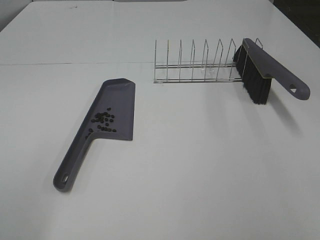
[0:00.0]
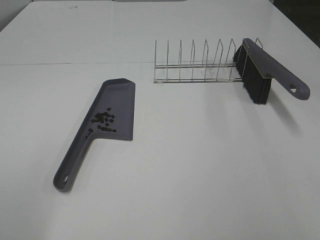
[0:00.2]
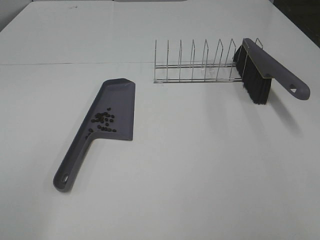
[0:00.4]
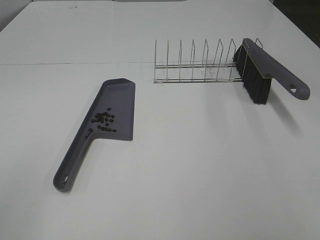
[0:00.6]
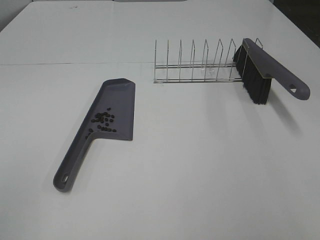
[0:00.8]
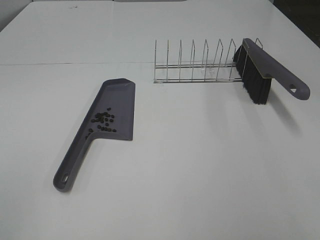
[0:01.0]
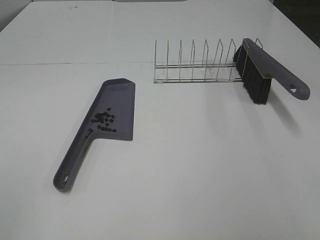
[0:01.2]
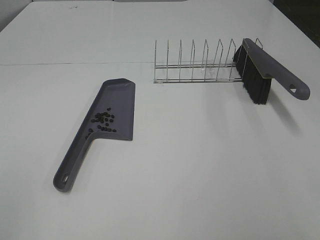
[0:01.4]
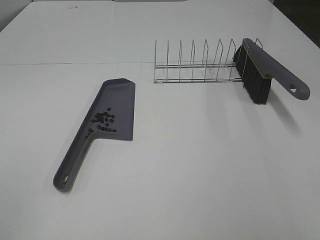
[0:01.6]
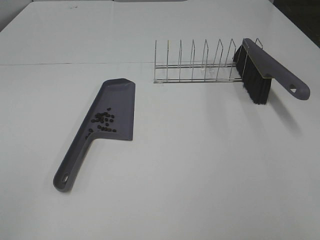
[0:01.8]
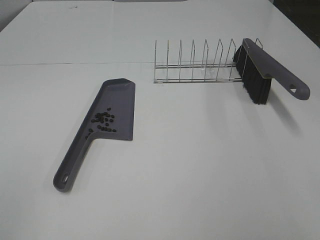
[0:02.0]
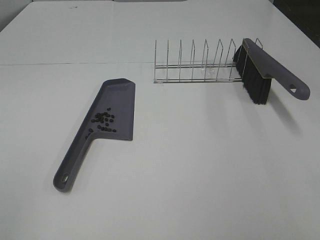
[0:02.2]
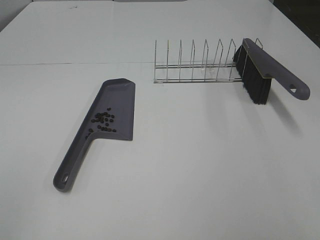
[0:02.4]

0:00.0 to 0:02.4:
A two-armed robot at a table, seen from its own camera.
Task of the whole recording: Sweep Coffee Bean.
0:01.2 to 0:02.4: The two grippers keep their place.

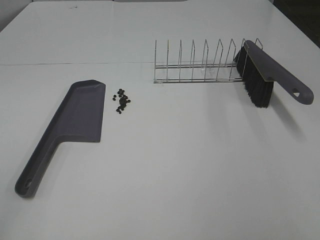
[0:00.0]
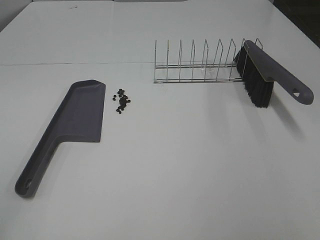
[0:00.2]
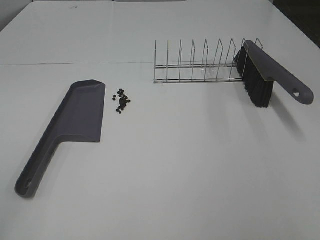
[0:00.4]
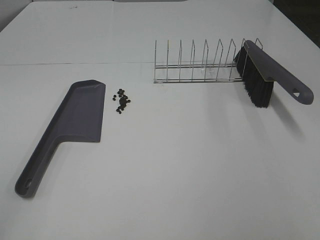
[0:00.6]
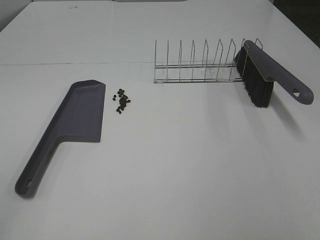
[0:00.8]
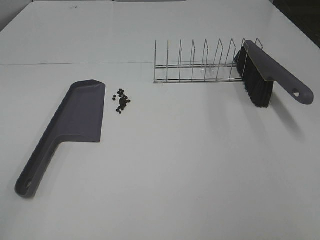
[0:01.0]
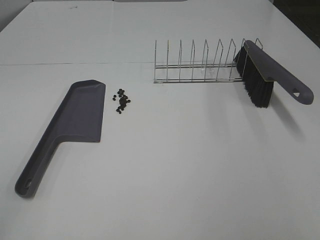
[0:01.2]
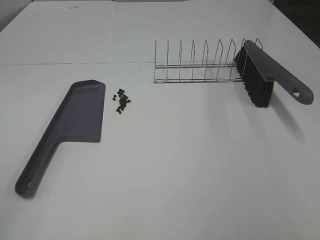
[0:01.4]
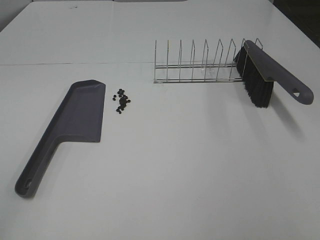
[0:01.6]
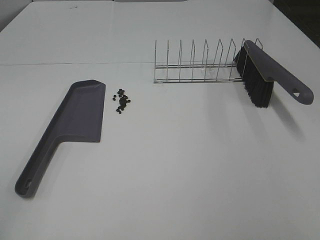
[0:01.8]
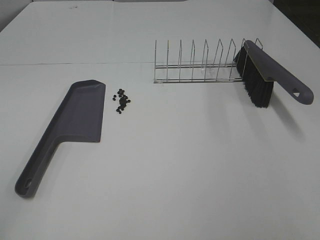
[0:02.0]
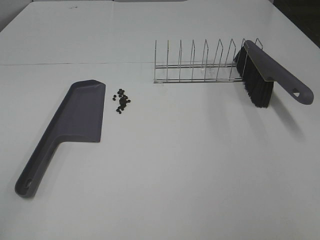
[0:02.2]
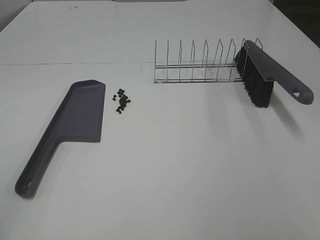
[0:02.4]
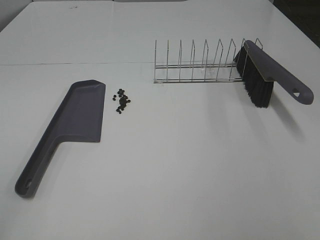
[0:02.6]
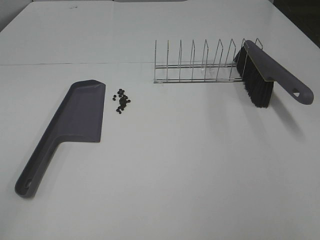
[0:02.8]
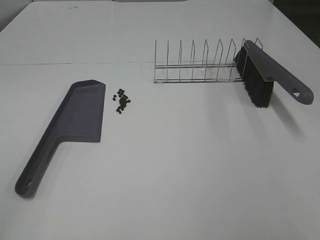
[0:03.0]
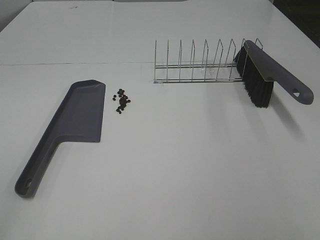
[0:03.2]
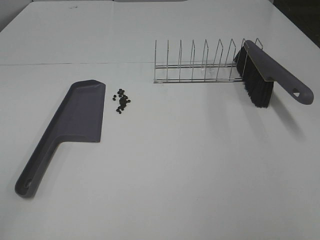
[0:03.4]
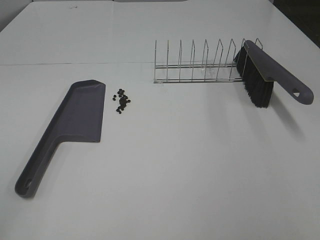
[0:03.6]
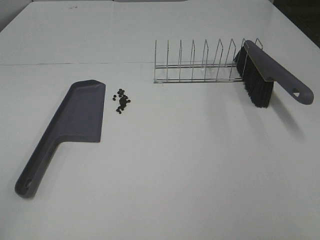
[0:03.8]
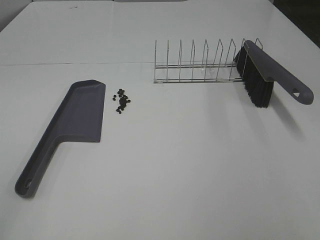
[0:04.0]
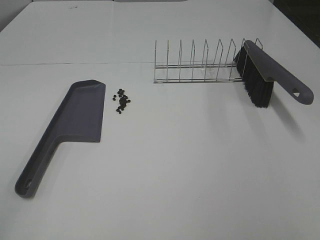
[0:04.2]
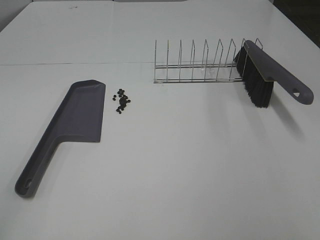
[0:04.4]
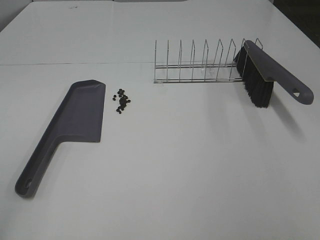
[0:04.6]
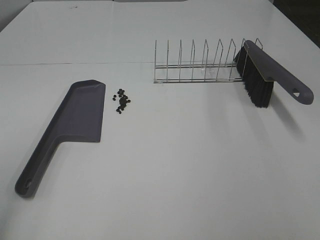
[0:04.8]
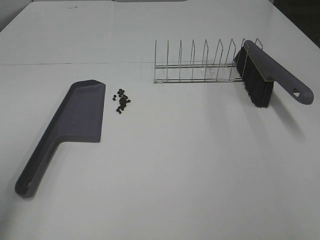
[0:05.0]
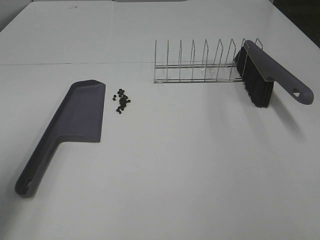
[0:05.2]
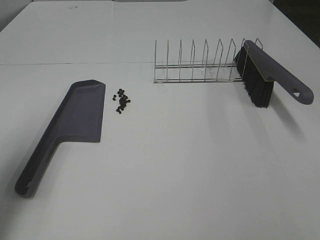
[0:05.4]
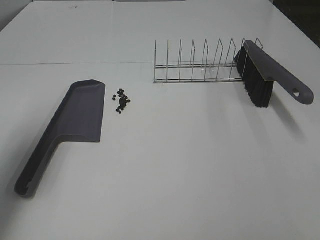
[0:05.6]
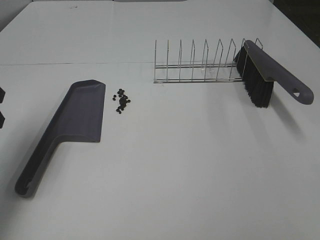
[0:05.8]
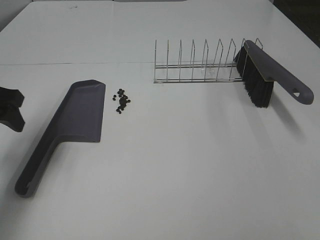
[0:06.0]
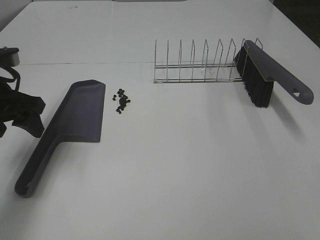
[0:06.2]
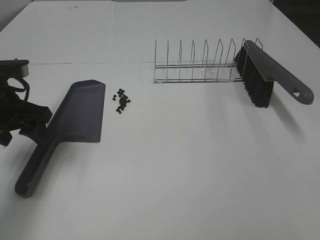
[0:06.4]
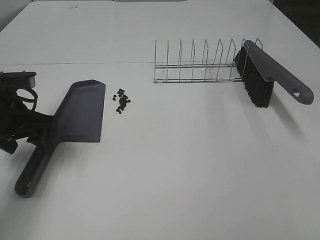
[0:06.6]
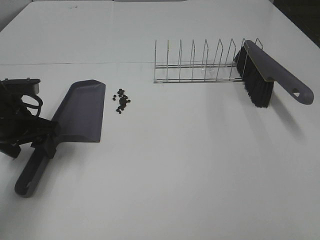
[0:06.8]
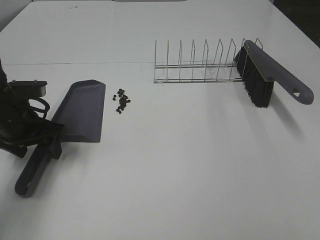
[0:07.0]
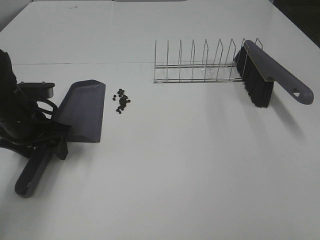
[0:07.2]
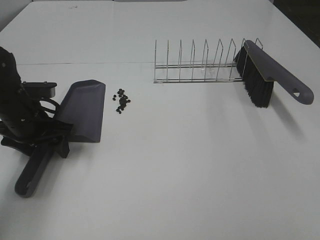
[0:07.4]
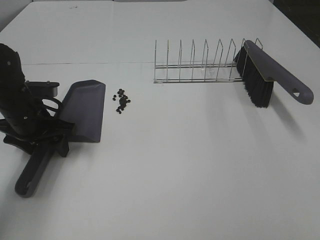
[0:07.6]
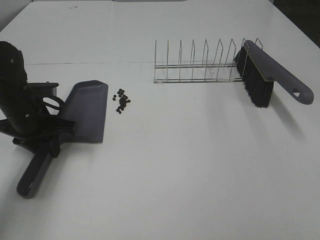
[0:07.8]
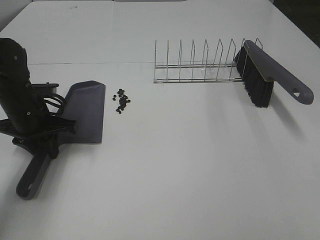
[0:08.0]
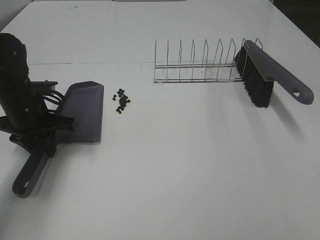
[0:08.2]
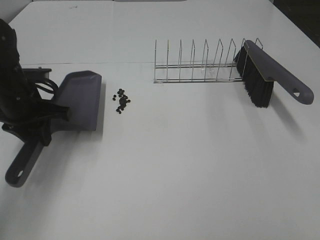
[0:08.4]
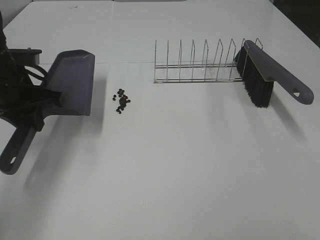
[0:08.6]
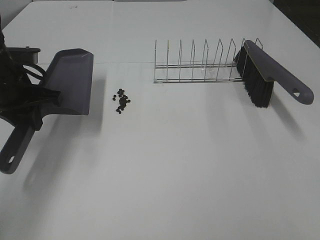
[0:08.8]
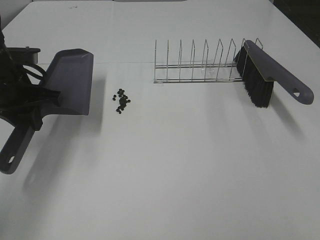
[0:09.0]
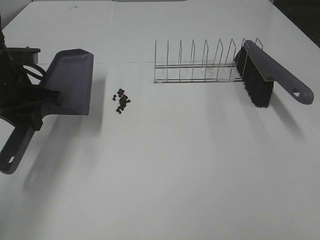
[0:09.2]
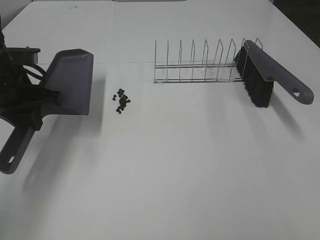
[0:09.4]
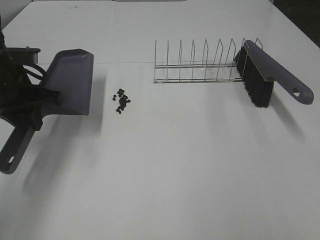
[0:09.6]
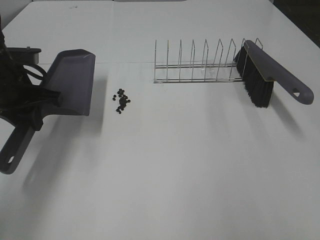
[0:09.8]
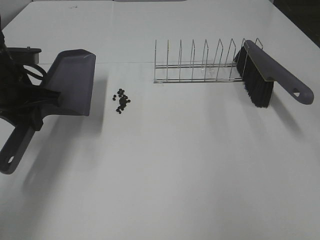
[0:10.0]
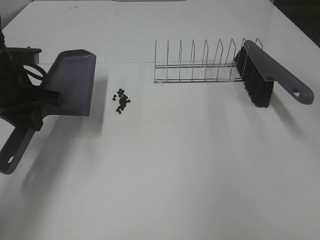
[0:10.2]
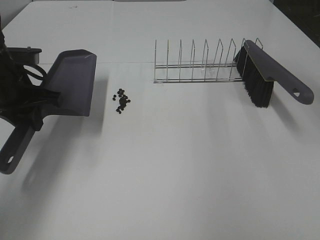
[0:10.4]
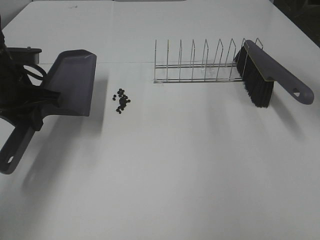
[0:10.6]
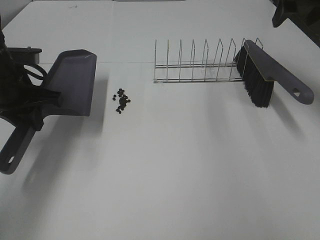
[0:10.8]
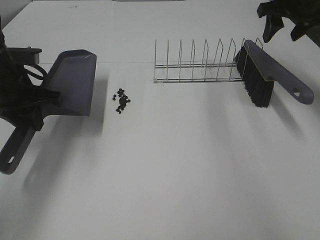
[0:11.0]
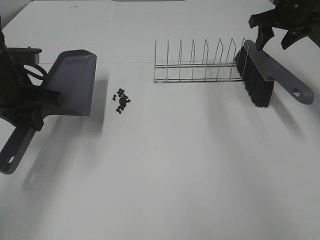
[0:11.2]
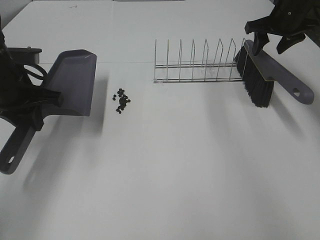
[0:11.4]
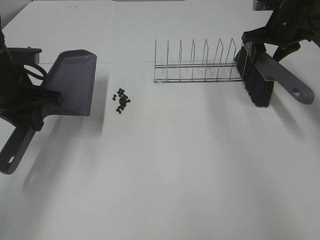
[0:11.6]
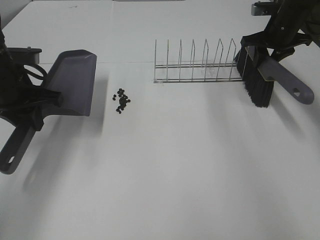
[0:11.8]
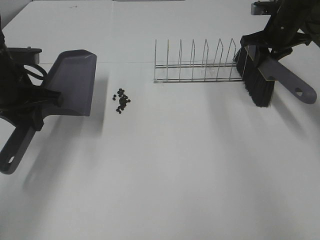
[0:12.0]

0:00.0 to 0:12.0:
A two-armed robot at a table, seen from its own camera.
Task of the whole recording: Sweep Coffee Bean.
Step, 0:00.0 to 0:08.0: Left hand: grab the dustpan.
0:00.0 to 0:04.4: Both grippers stay about where they are.
0:04.4 to 0:06.0: The left gripper travels forward by roughly 30 cm.
0:06.0 to 0:07.6: The left gripper shifts some 10 cm downward.
0:07.6 to 0:09.0: The left gripper travels upward by some 10 cm, and closes.
0:10.4 to 0:12.0: The right gripper moves forward and downward, some 25 cm, and closes.

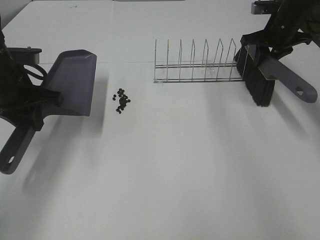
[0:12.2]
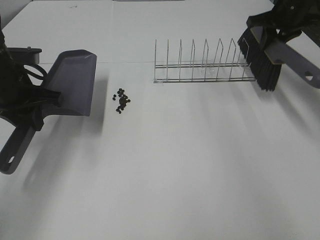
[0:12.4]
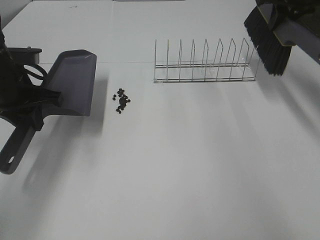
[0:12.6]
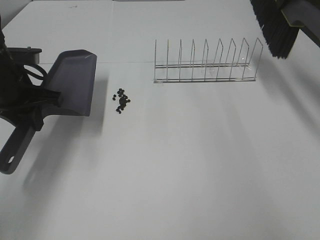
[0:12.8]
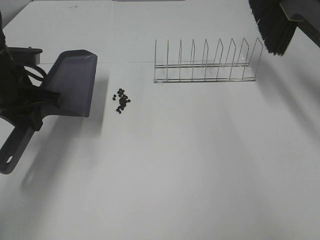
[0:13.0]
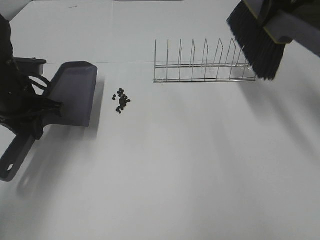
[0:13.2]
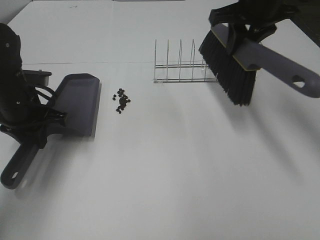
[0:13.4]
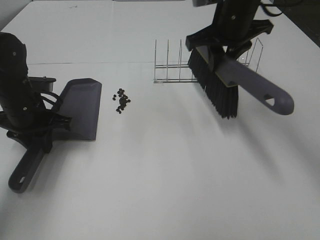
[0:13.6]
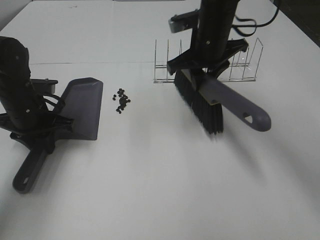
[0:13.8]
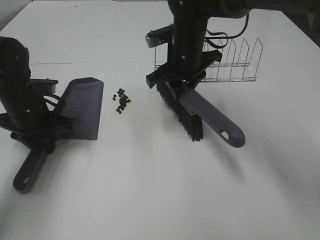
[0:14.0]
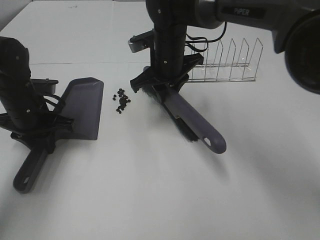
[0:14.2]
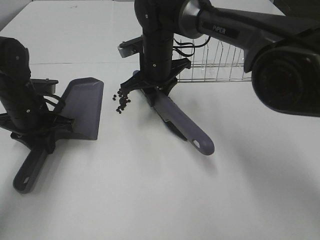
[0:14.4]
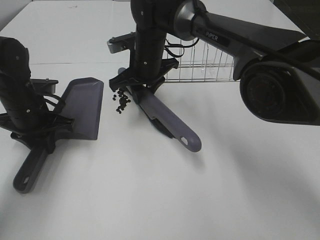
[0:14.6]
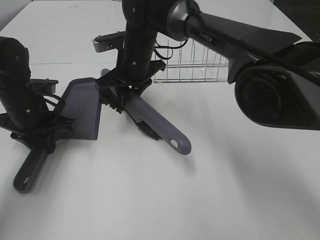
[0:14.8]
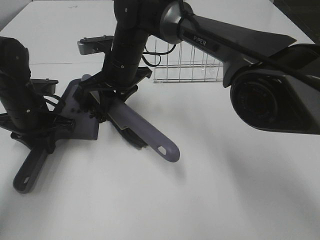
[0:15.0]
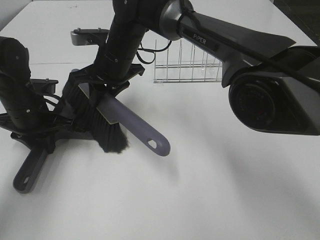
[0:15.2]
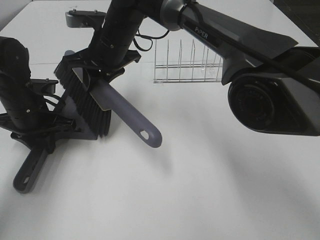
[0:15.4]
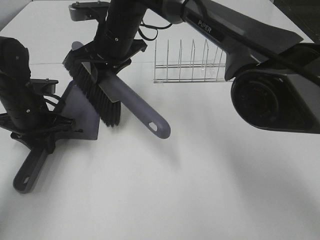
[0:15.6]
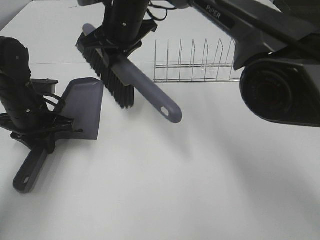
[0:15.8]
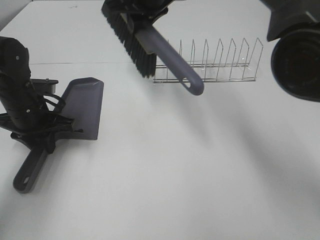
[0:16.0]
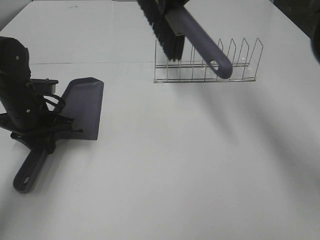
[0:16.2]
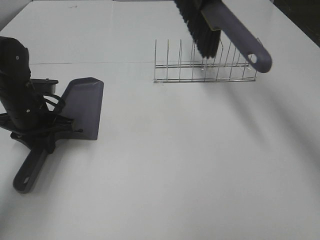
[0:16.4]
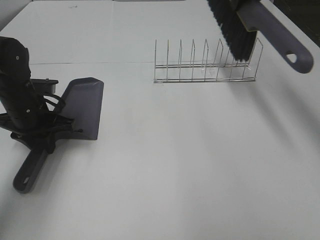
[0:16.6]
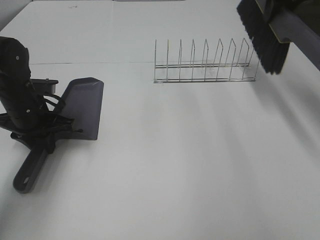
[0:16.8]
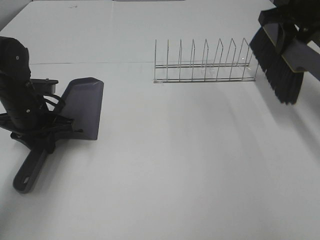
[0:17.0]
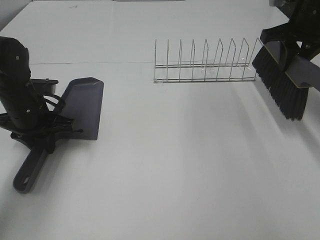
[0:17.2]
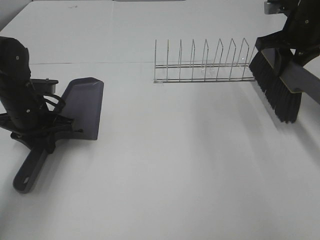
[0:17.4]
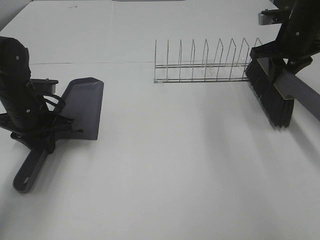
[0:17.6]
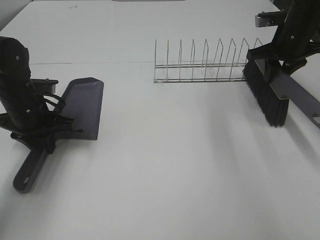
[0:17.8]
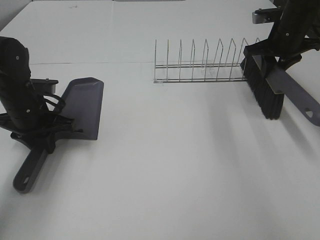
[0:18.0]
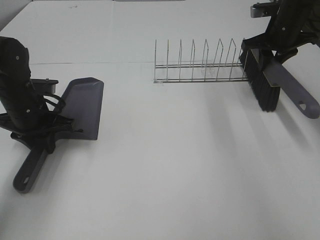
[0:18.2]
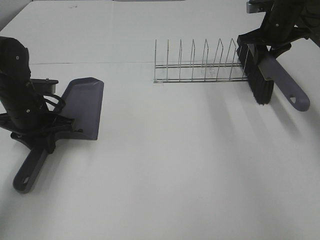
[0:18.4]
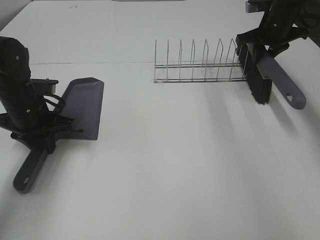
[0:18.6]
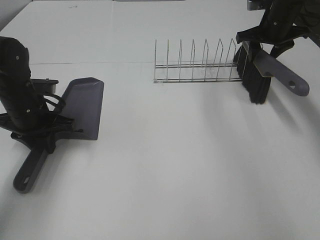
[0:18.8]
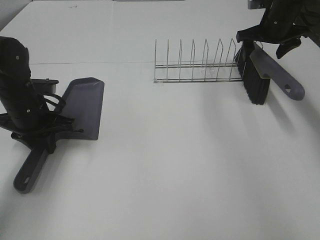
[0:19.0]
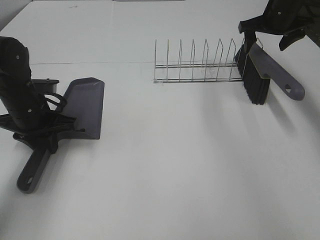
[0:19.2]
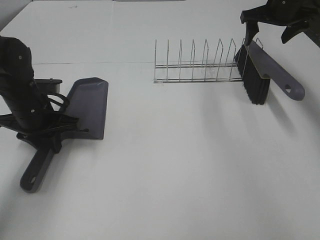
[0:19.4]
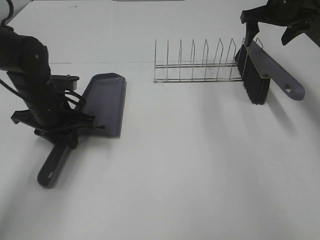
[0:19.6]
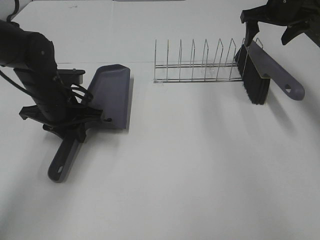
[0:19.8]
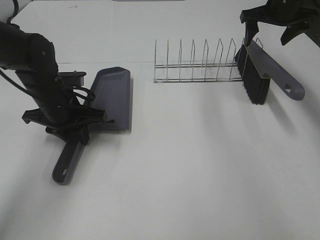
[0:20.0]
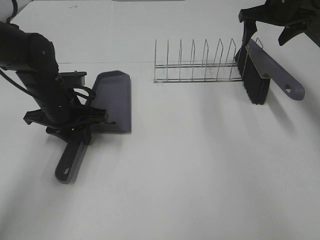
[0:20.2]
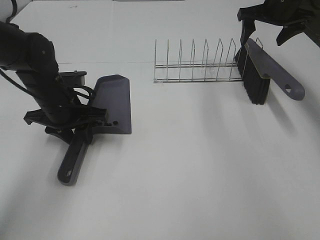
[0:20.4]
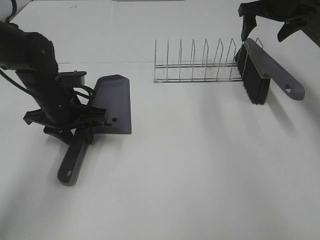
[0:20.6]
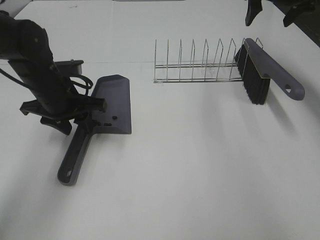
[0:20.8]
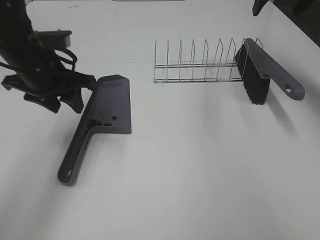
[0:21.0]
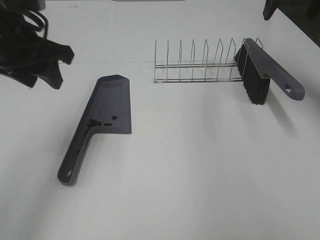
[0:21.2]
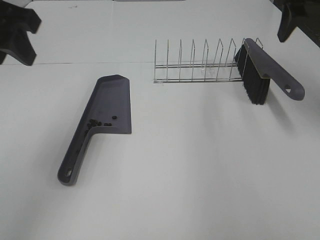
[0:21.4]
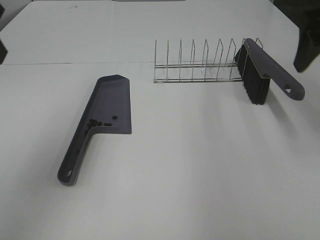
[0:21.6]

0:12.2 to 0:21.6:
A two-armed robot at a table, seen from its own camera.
Task of the whole recording: Sweep Coffee Bean.
Step, 0:12.4 to 0:15.6: Right hand:sweep the coffee beans into the dustpan.
Step, 0:15.8 to 0:18.8: Right hand:place the broom on the rack.
Step, 0:19.0 to 0:20.8: Left hand:place the dustpan on the table.
0:12.2 to 0:13.8: The left gripper is displaced downward by some 5 cm, while the right gripper heads to the left and backward, covering about 20 cm.
0:13.8 to 0:15.4: The right gripper is displaced to the left by about 15 cm.
0:15.4 to 0:17.0: The right gripper shifts some 35 cm to the right.
0:17.0 to 0:18.4: The right gripper heads forward and downward, covering approximately 10 cm.
0:18.4 to 0:20.0: The left gripper is displaced to the right by approximately 5 cm, while the right gripper opens up.
0:20.0 to 0:21.6: The left gripper shifts roughly 30 cm upward and backward, and opens its fingers. The right gripper is displaced backward by about 20 cm.
